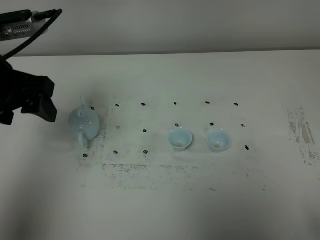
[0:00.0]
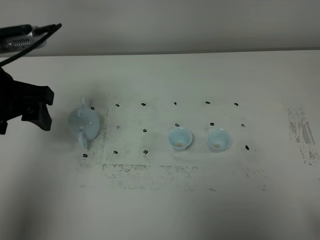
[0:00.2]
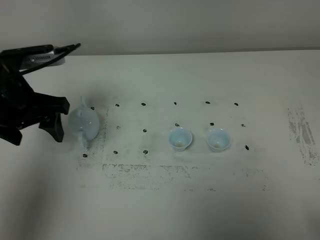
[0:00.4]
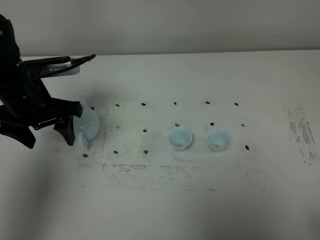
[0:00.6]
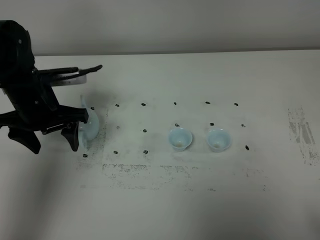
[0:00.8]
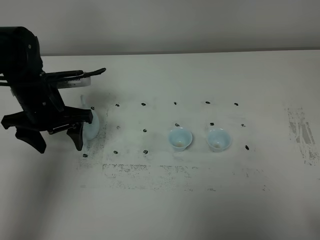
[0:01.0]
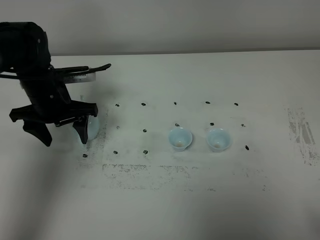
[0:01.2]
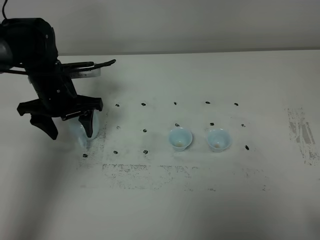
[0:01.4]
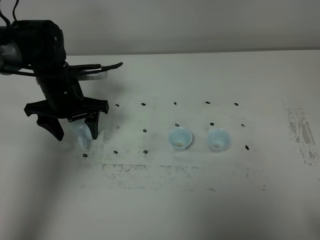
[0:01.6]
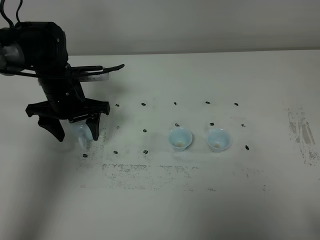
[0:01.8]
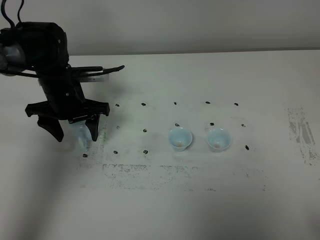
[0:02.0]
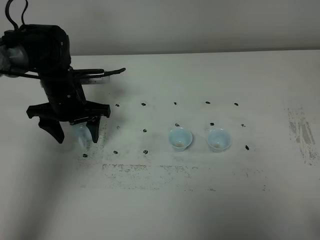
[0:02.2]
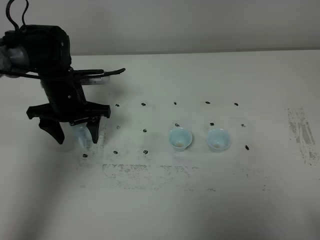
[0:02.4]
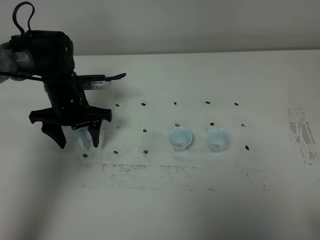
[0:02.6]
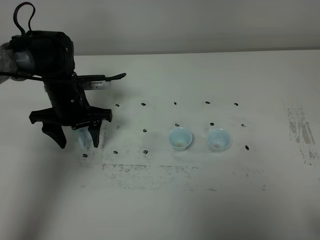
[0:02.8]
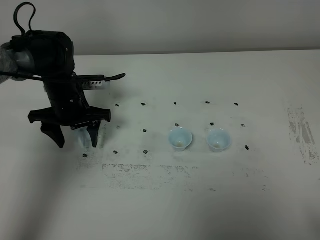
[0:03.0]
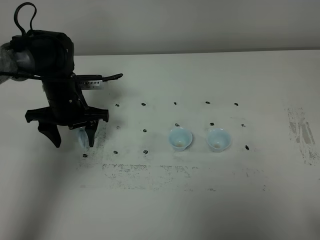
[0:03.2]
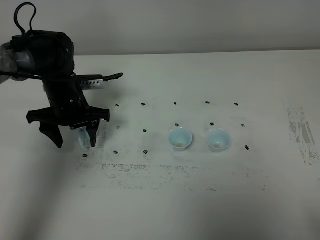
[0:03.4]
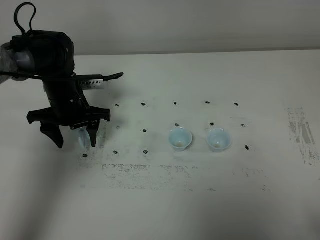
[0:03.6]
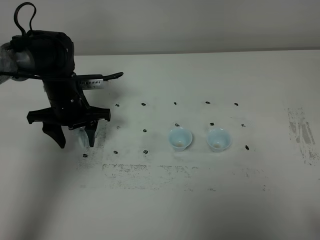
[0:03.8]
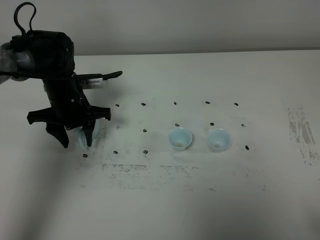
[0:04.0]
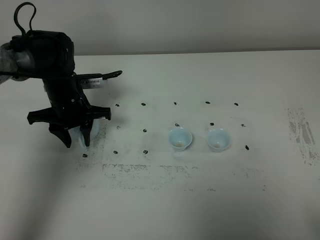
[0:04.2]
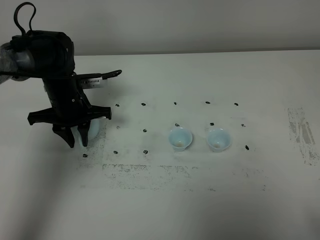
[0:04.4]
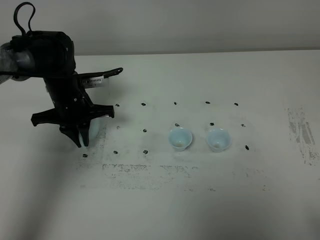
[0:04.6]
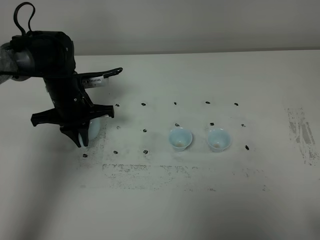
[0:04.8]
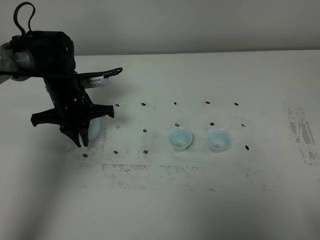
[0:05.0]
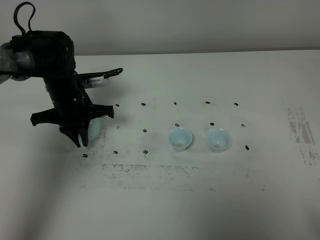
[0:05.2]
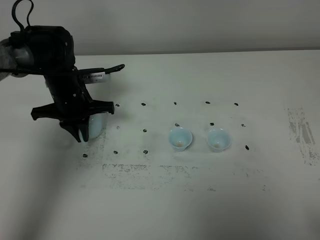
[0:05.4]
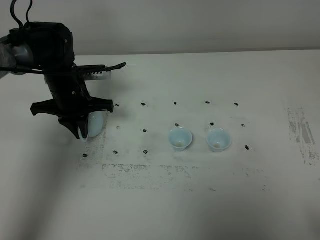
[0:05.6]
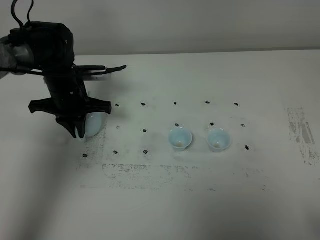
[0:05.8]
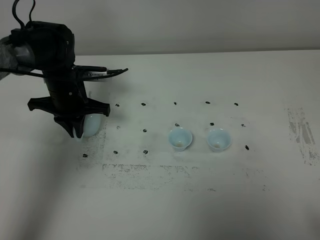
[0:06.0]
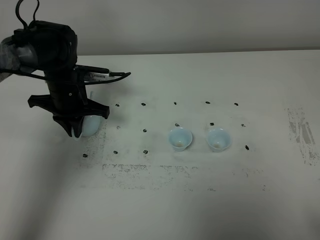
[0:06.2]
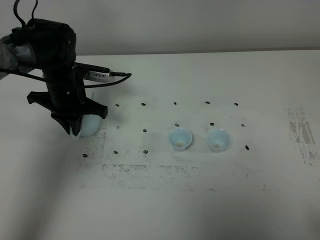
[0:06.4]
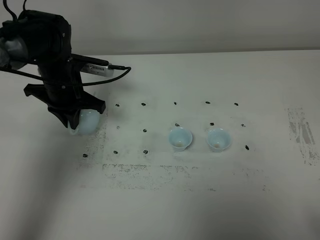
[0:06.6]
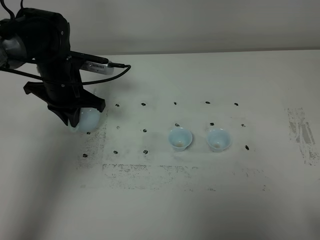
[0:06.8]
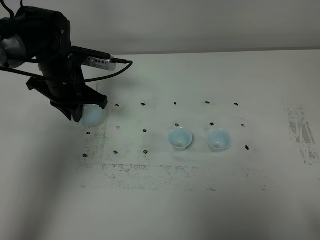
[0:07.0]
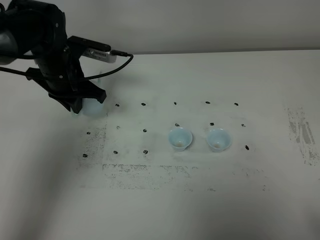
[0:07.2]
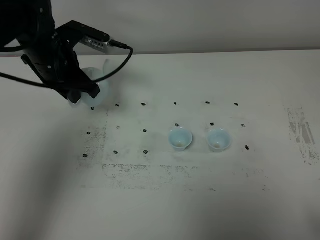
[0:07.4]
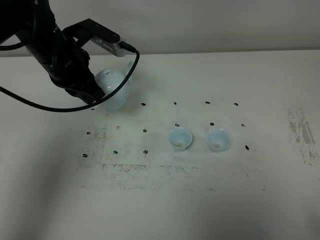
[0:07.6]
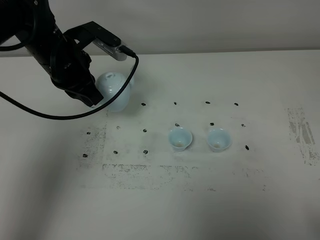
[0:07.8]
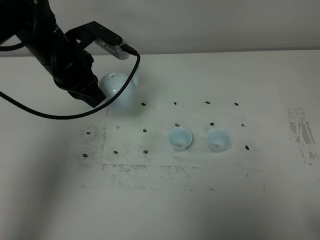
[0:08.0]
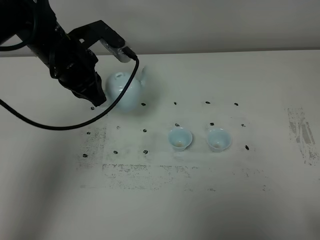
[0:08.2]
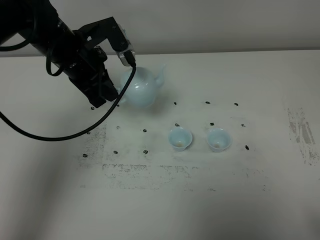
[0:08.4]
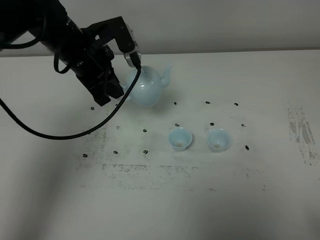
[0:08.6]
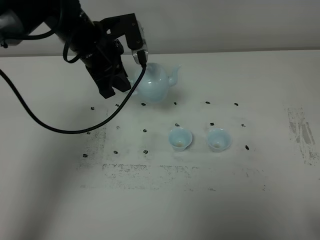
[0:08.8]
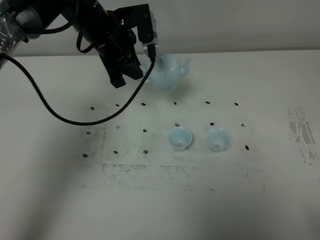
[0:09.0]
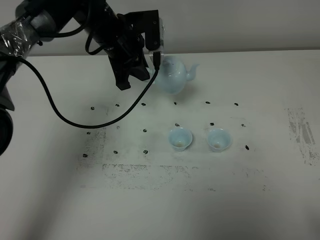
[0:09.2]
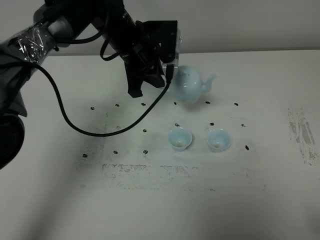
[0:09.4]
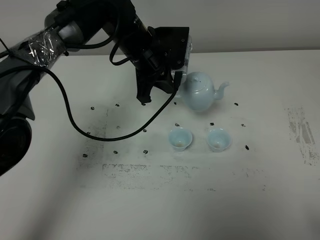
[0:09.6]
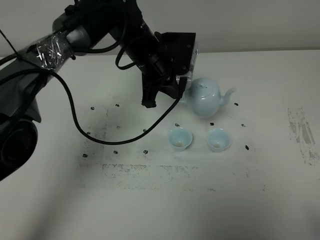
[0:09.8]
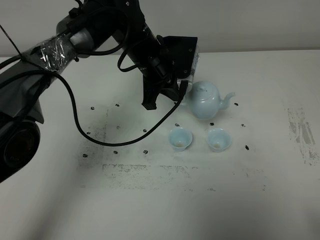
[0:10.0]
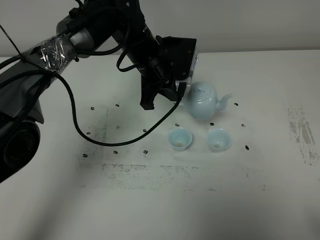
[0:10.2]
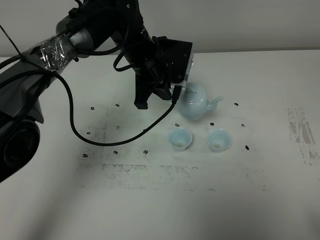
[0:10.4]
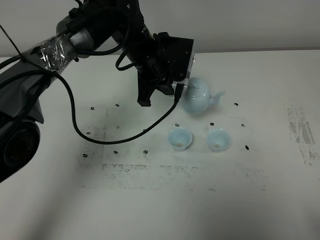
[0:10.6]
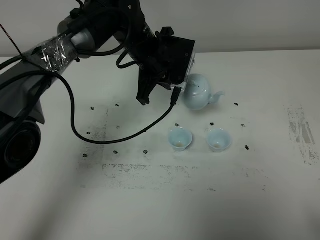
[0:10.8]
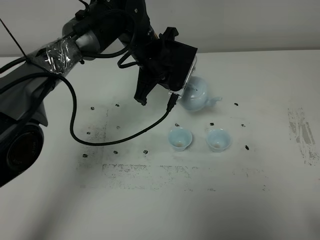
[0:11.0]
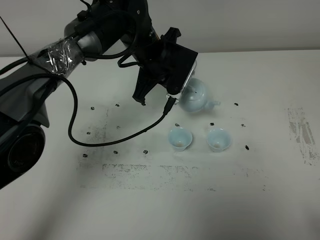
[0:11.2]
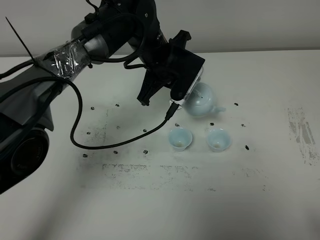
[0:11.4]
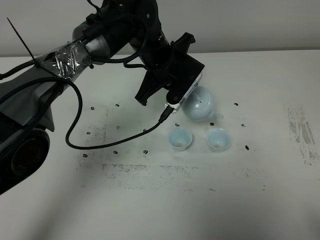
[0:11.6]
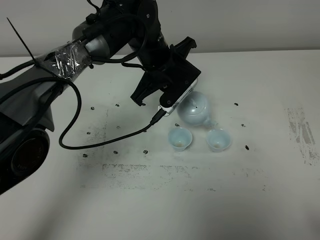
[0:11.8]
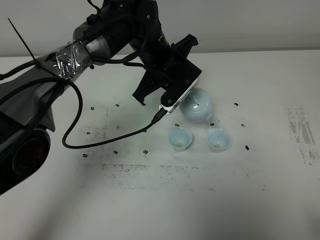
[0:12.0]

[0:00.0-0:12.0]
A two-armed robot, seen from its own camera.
Task of the whole recording: grasp the blue porcelain teapot and pour the tea into the two blue porcelain teacups one by one, put the blue porcelain teapot back in its original place.
Step, 0:00.0 to 0:06.6: Pick up the teapot with the left gripper.
0:00.0 to 0:01.6: The left gripper goes about 20 cm downward and forward.
0:01.6 to 0:03.0: The grippers make only small movements.
0:03.0 to 0:04.4: The left gripper closes up.
0:04.4 to 0:06.0: The grippers make only small movements.
0:06.0 to 0:07.6: The left gripper heads upward, covering about 10 cm.
0:07.6 to 0:09.0: The left gripper is displaced to the right and forward by about 10 cm.
0:09.0 to 0:10.4: The left gripper travels to the right by roughly 5 cm.

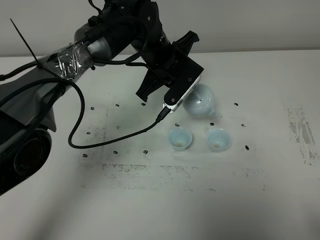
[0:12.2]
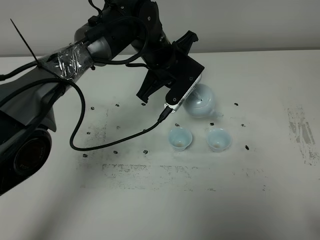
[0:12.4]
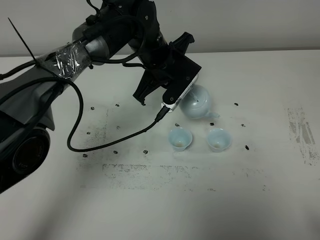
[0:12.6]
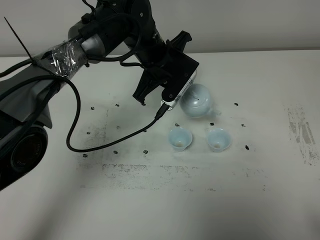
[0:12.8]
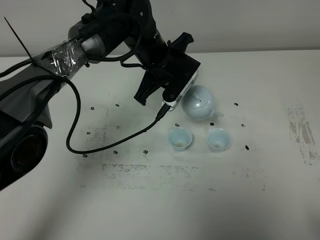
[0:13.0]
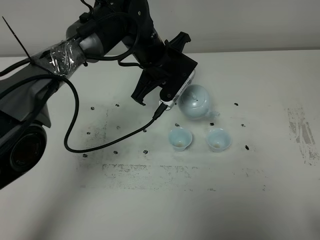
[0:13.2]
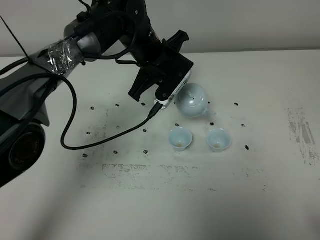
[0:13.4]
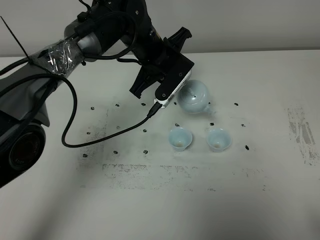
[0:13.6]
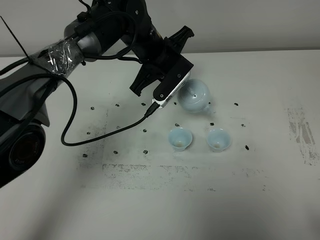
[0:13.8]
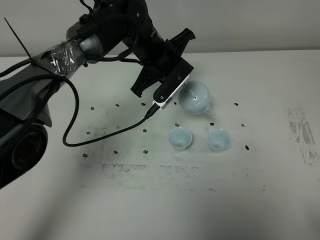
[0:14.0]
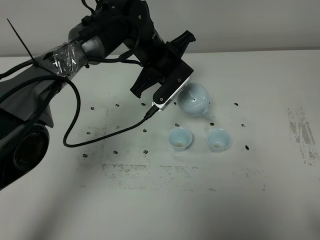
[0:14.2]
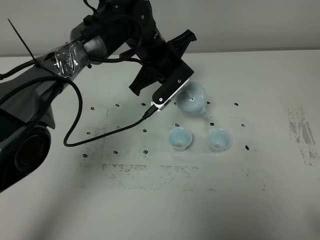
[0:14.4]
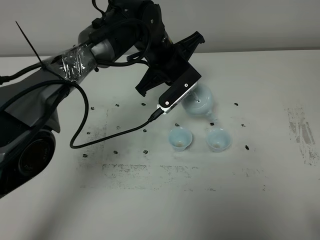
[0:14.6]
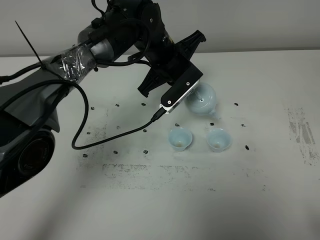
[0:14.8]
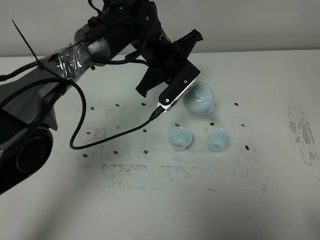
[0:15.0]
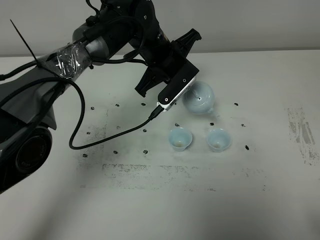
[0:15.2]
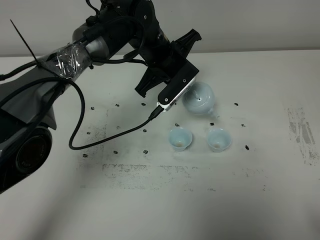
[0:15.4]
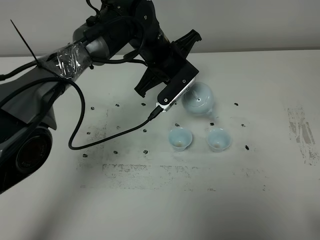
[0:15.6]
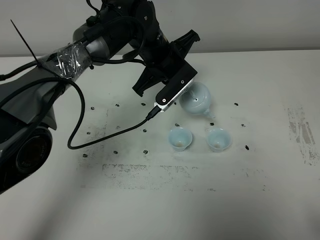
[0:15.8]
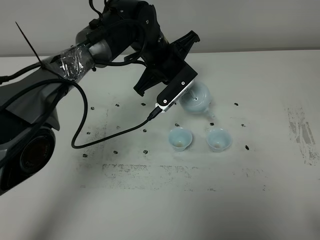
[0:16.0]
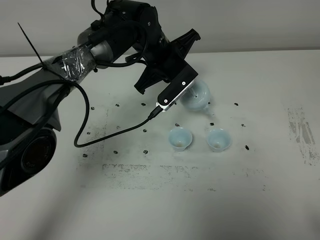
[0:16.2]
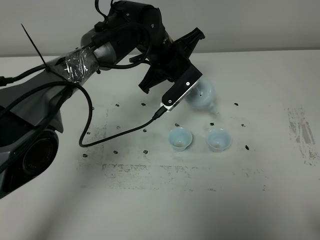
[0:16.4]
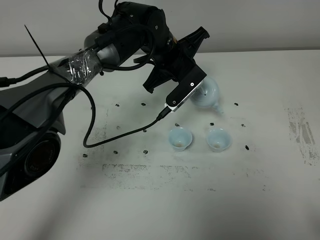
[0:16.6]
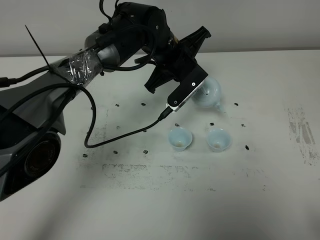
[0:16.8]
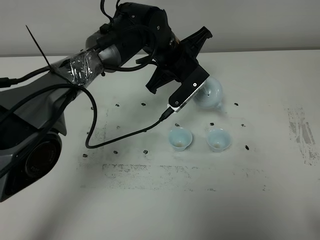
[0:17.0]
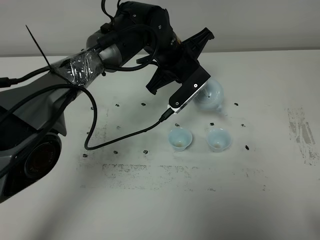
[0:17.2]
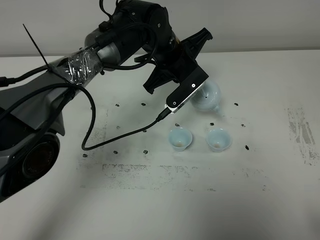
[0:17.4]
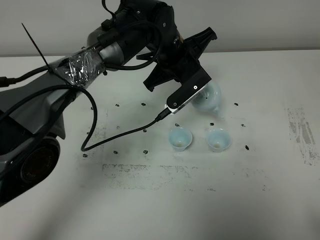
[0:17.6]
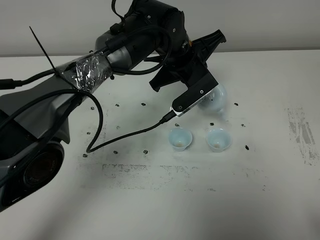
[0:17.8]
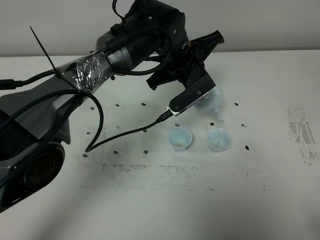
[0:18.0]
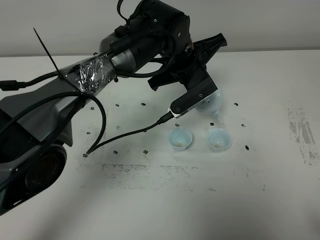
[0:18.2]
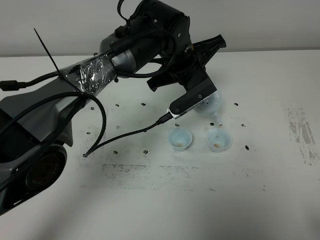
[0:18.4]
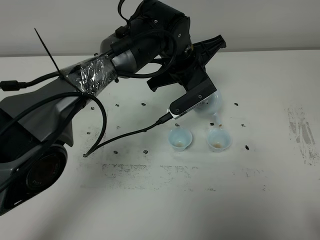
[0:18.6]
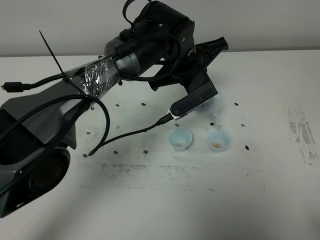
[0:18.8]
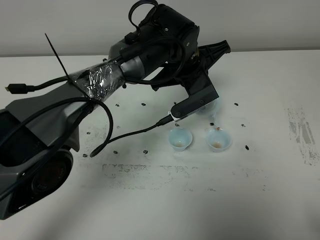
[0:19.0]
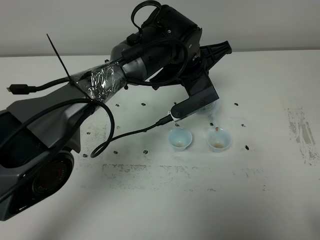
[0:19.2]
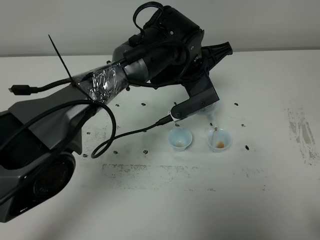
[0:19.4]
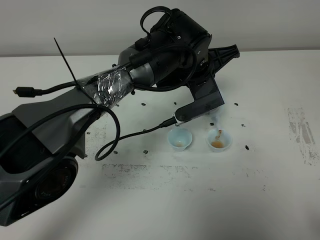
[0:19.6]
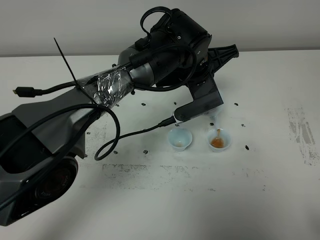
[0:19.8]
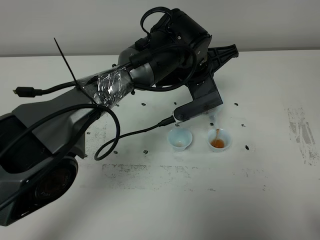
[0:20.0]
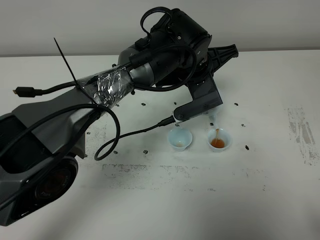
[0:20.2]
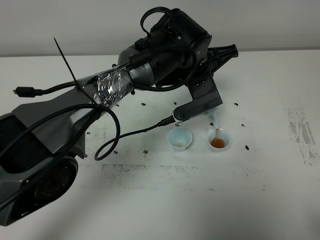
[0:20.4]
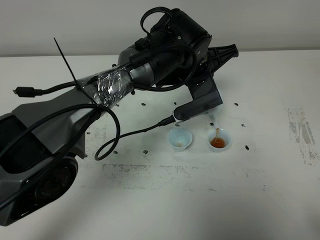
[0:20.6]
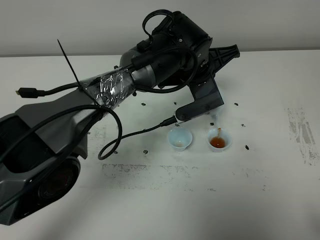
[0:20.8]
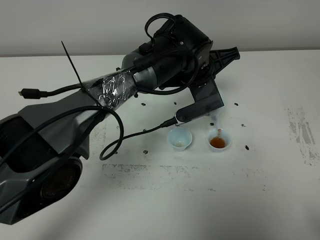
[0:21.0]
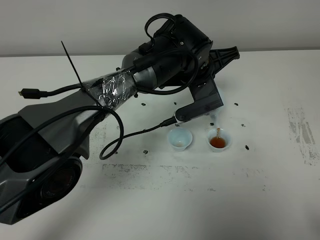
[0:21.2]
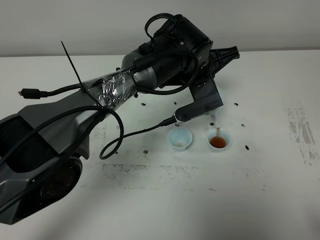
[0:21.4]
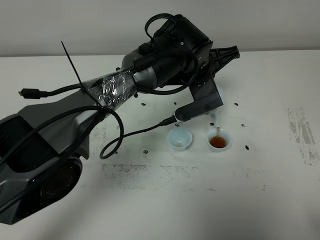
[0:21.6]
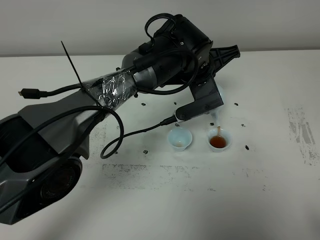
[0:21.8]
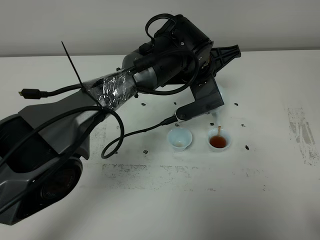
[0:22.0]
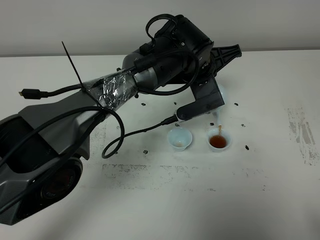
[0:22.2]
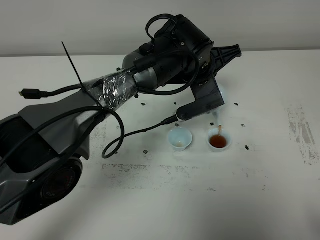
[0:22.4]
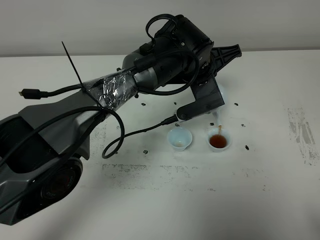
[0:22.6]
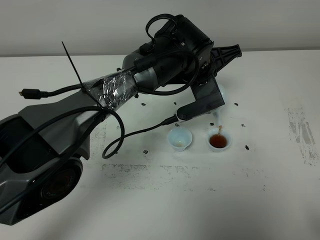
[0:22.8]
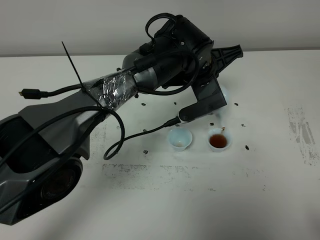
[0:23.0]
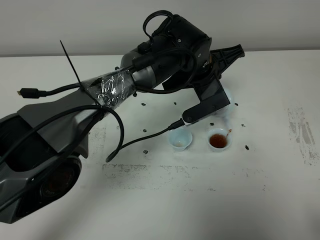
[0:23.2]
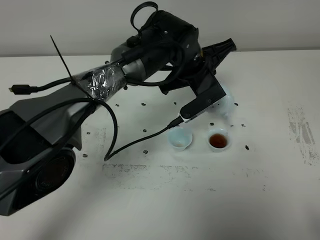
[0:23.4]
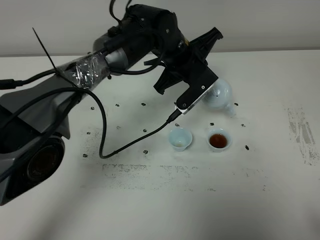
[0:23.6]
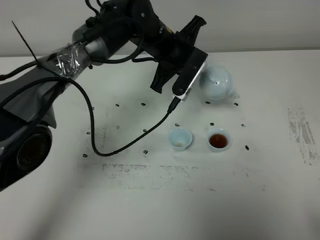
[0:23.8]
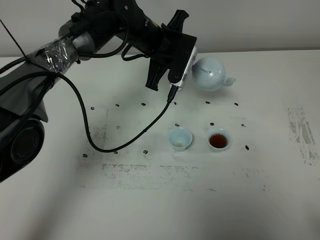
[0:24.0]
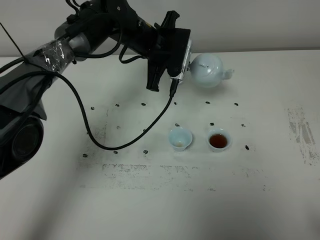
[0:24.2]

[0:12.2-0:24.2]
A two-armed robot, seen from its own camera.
Task of the whole recording: grasp the blue porcelain teapot and pour the tea into the two blue porcelain teacups one by one, put the blue porcelain teapot back in its original place.
0:12.2 to 0:16.6: There are only small adjustments of the grippers.
0:16.6 to 0:18.2: There are only small adjustments of the grippers.
0:19.8 to 0:22.6: Both grippers stay about where they are.
0:22.6 to 0:24.2: The left gripper heads to the left and forward, covering approximately 10 cm.
